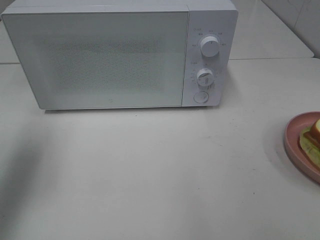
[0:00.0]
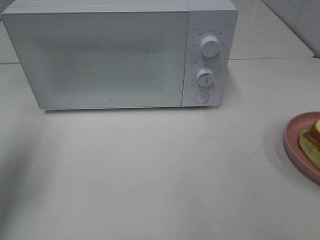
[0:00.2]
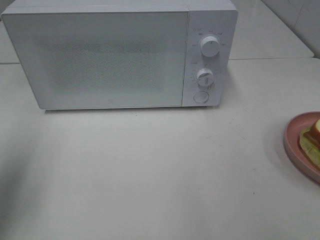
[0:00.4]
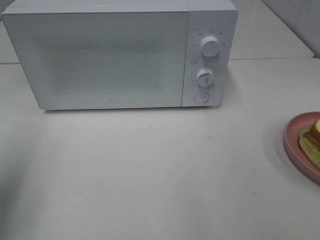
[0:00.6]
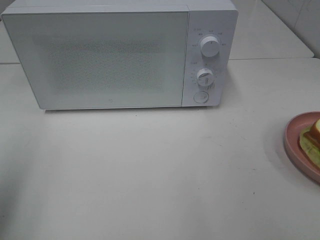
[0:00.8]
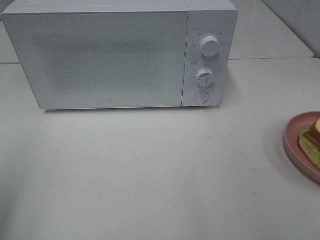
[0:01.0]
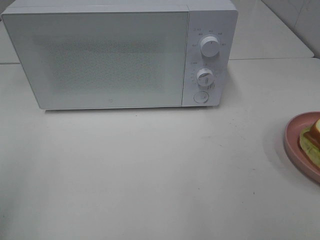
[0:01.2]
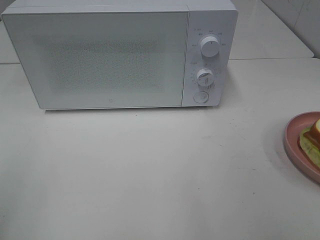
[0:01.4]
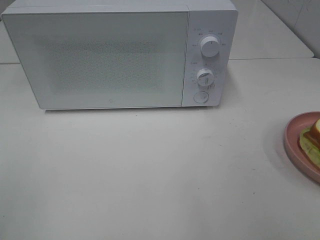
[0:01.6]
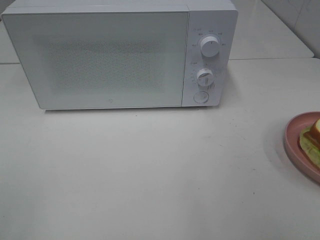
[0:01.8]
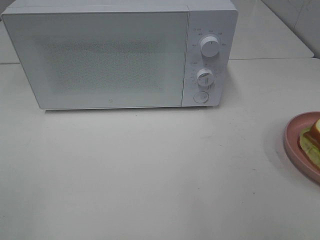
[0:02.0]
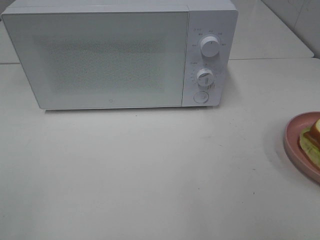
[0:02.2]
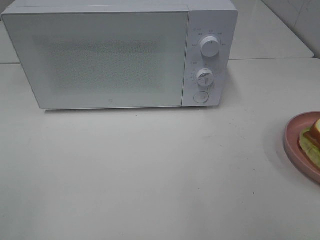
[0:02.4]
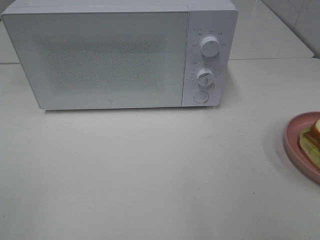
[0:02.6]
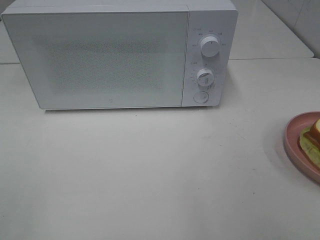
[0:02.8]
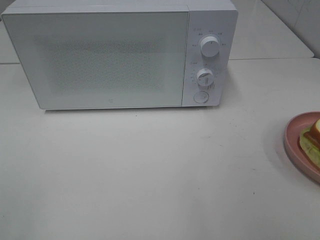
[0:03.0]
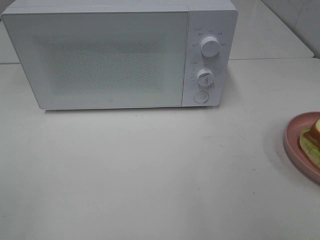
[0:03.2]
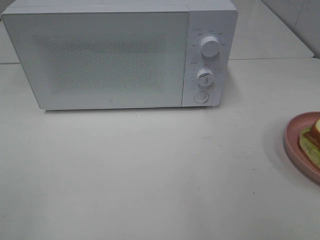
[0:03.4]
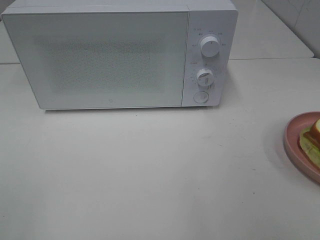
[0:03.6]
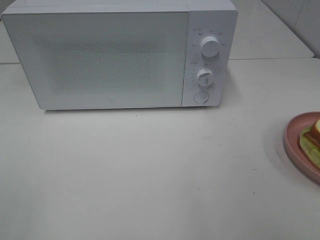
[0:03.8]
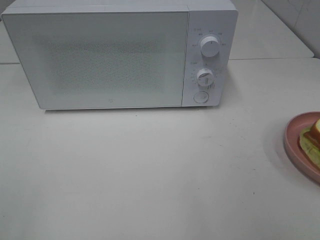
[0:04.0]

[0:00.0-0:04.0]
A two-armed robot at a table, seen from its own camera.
Task of the whole recording: Heat Sandwich.
0:00.0 to 0:01.4: The left gripper shifts about 20 cm backward.
0:02.6 to 0:04.0: Both grippers stay put.

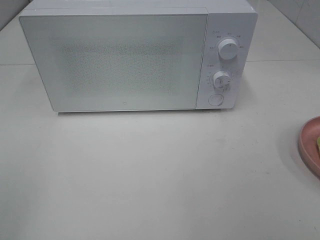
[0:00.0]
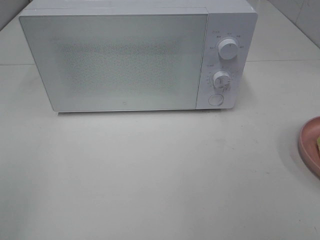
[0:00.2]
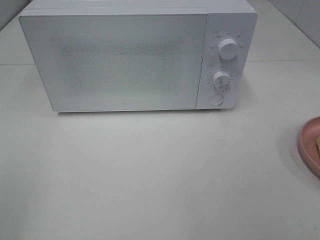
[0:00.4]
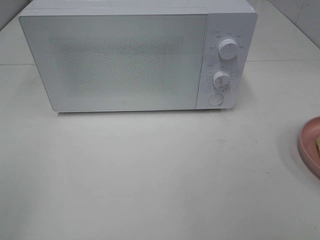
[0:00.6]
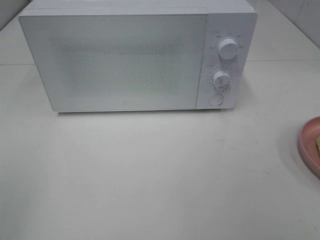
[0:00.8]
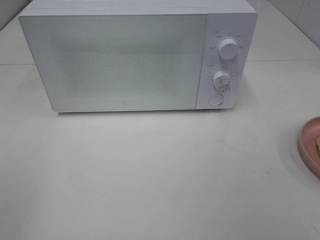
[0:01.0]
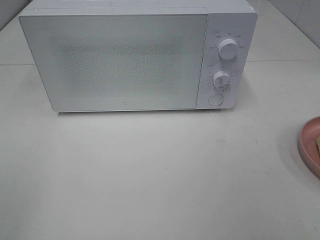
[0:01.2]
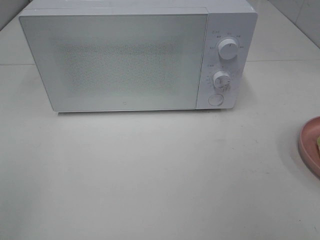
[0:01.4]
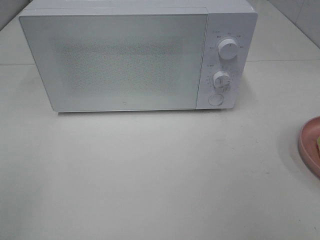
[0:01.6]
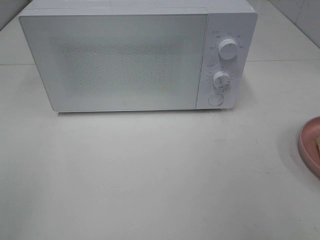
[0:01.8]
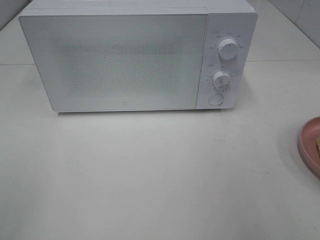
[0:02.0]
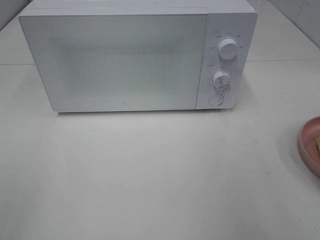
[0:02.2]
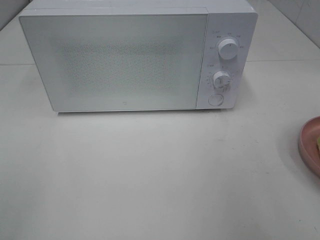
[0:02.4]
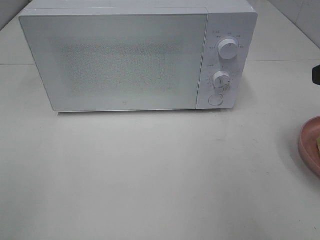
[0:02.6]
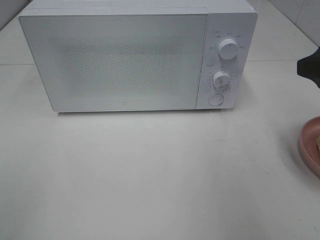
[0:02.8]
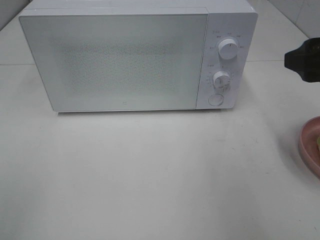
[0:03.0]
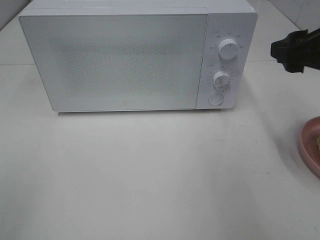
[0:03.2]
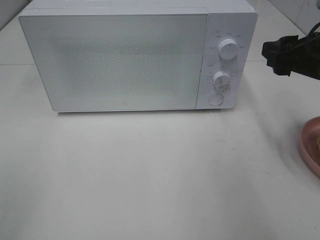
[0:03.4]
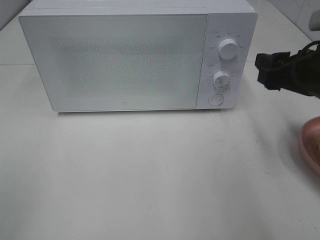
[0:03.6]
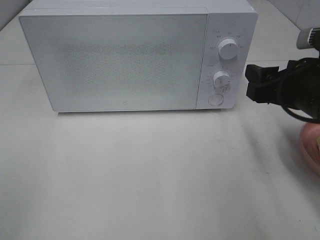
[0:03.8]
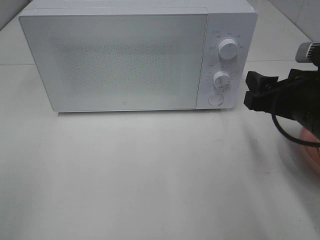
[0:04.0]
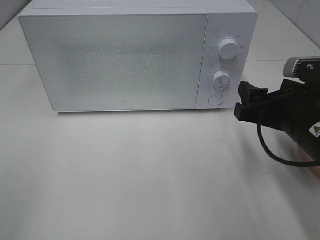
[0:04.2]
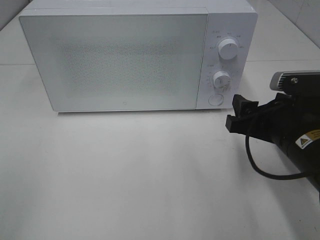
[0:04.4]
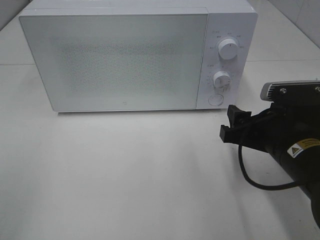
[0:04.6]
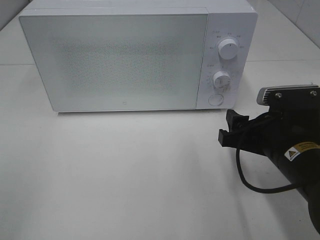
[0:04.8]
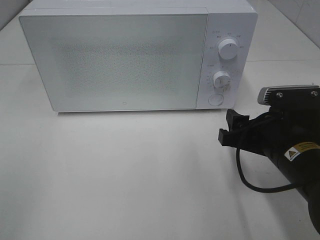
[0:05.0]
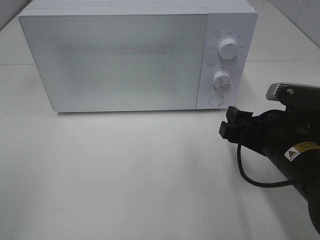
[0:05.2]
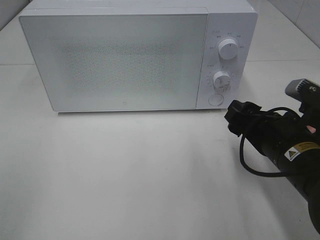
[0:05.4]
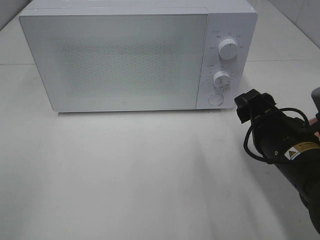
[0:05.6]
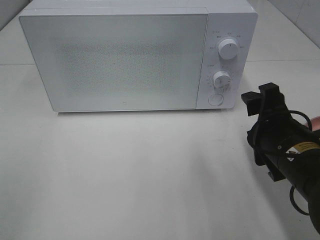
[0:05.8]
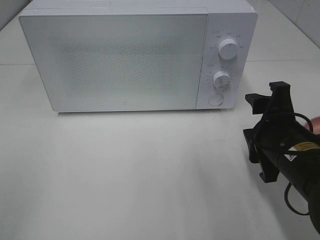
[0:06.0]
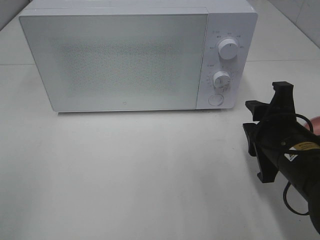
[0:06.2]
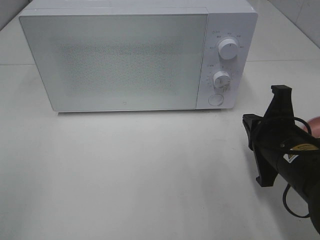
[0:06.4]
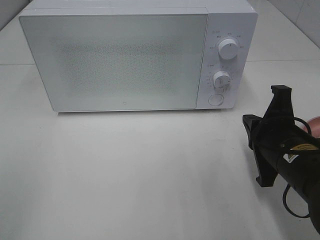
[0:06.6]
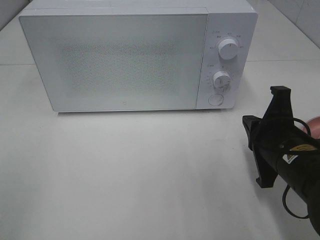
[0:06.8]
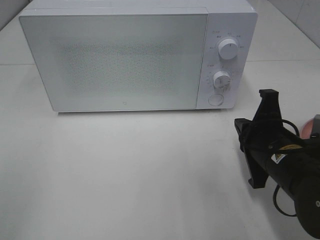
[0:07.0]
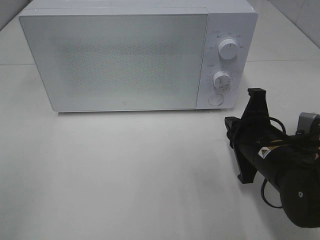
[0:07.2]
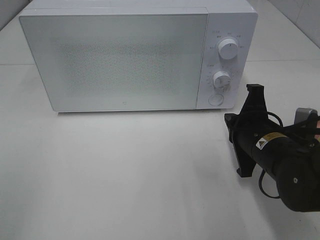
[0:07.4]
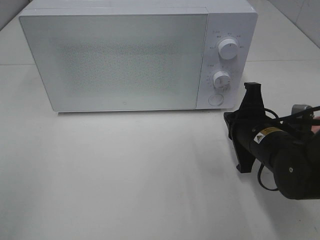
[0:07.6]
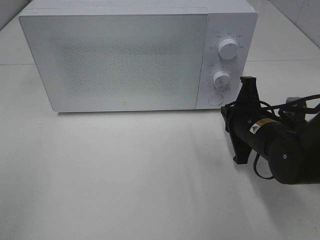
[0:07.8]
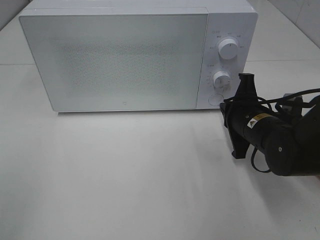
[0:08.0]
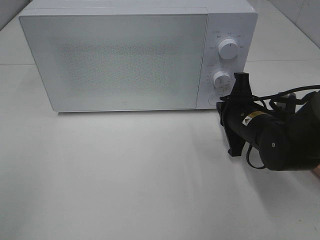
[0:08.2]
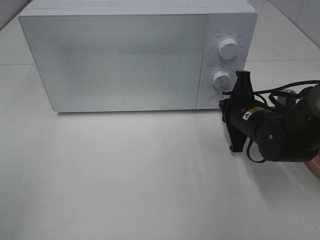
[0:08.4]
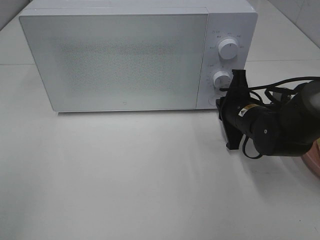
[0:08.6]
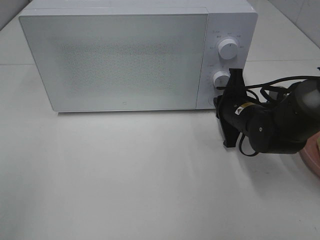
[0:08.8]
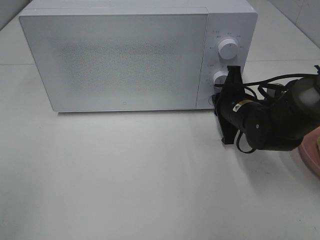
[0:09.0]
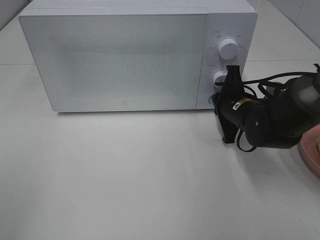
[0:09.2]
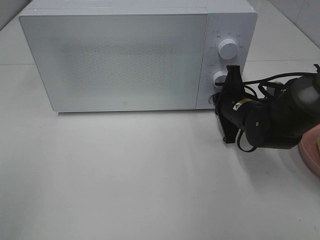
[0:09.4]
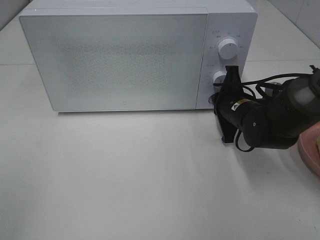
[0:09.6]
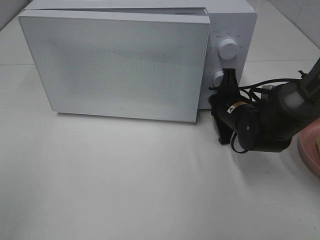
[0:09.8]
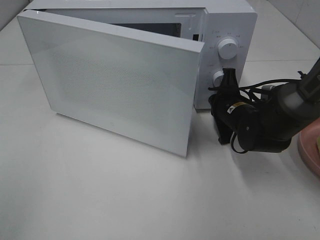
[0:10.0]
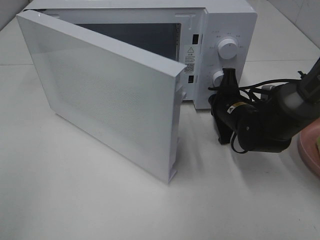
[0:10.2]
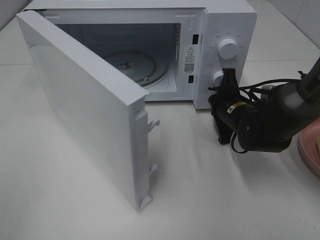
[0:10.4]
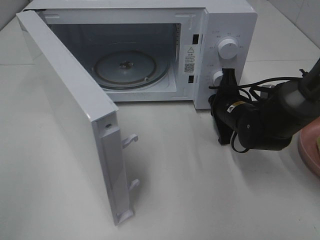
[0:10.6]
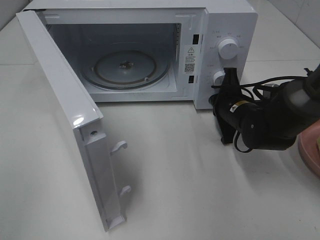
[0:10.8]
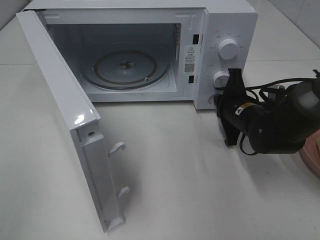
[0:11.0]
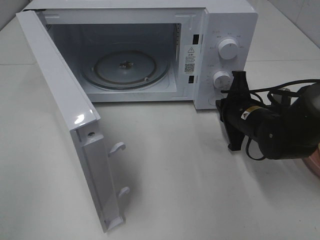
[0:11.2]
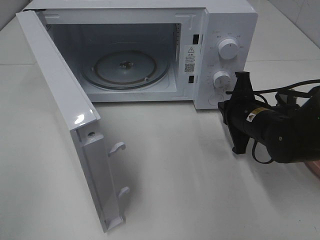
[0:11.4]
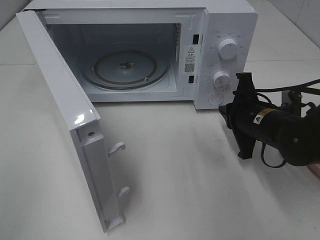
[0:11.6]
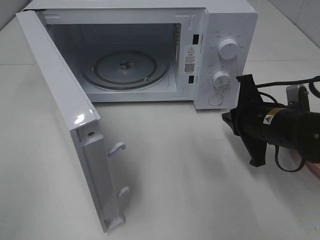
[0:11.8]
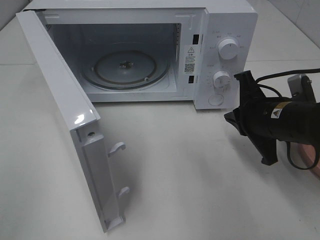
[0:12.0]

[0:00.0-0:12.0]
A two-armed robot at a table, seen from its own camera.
Task of the whole recording: Heat Sandwich.
Step, 0:00.0 to 0:11.4: Right hand: press the switch.
0:01.6 to 0:03.0: The right gripper goes roughly 15 cm forward.
0:03.0 to 0:04.4: The right gripper goes approximately 15 cm downward and to the left.
0:06.0 to 0:07.6: The right gripper shifts about 5 cm forward, and closes its fingers.
0:07.6 to 0:09.0: The right gripper shifts approximately 10 cm forward.
0:10.4 to 0:12.0: The right gripper travels backward and upward by some 10 cm.

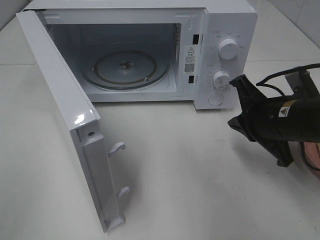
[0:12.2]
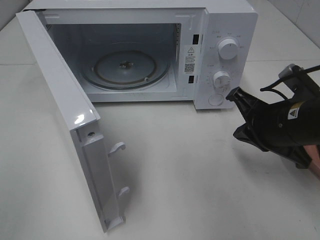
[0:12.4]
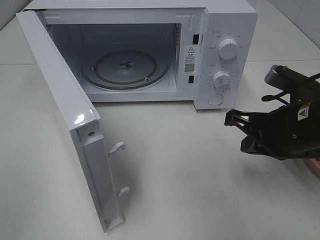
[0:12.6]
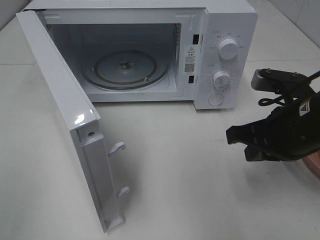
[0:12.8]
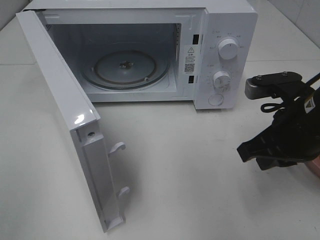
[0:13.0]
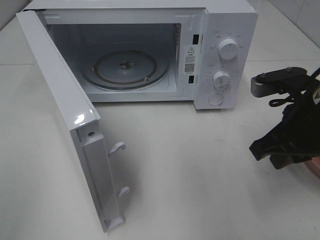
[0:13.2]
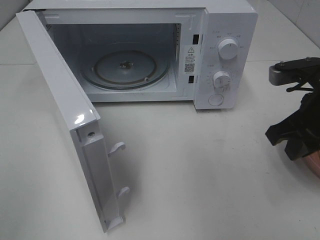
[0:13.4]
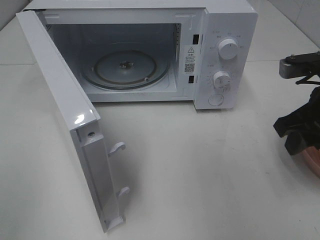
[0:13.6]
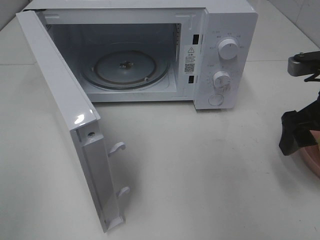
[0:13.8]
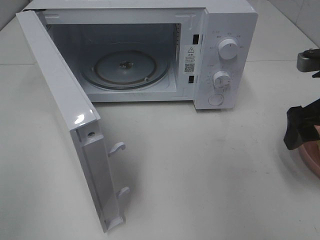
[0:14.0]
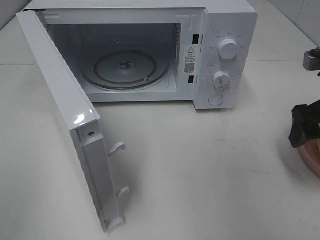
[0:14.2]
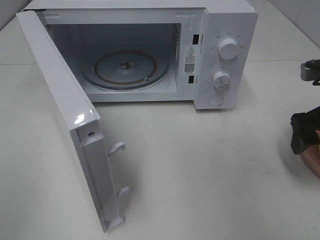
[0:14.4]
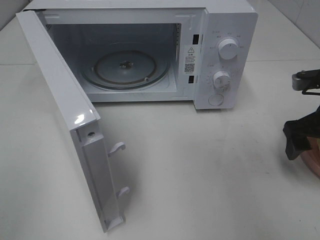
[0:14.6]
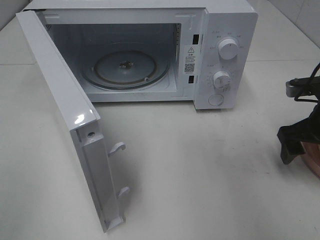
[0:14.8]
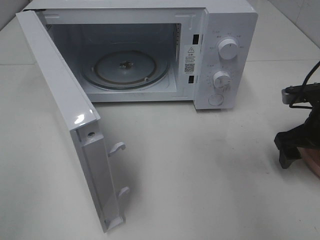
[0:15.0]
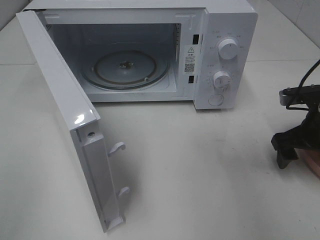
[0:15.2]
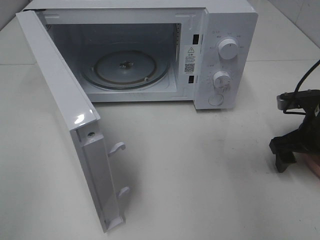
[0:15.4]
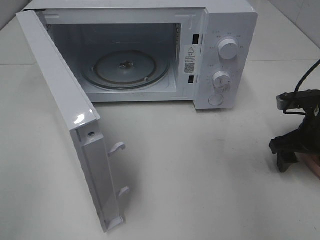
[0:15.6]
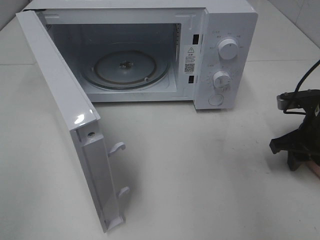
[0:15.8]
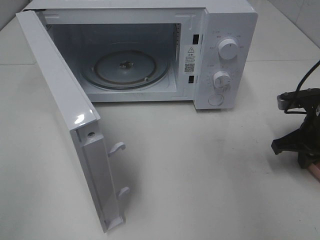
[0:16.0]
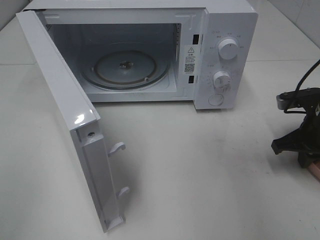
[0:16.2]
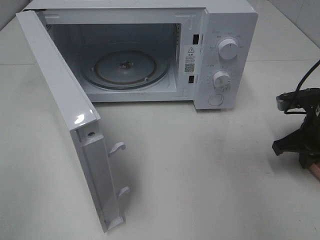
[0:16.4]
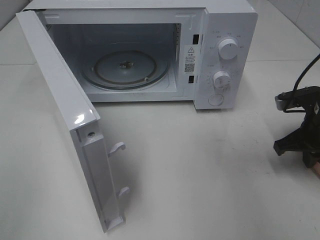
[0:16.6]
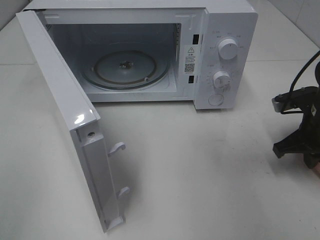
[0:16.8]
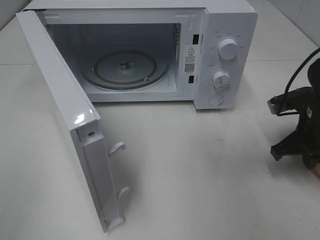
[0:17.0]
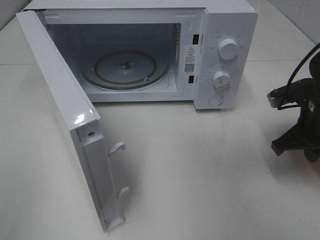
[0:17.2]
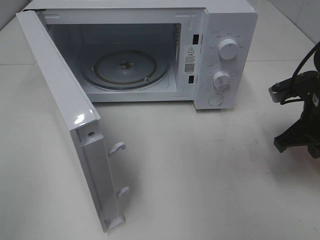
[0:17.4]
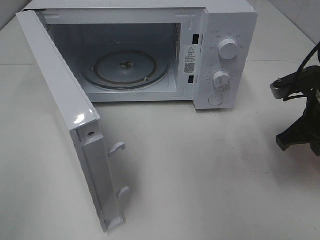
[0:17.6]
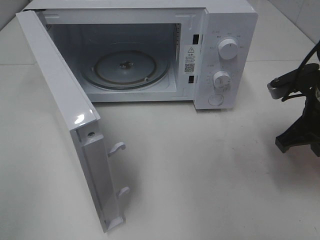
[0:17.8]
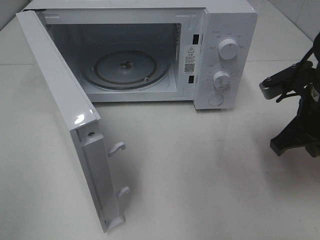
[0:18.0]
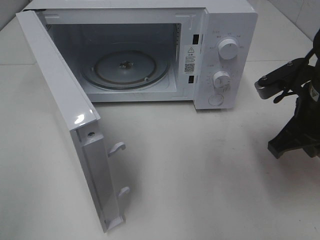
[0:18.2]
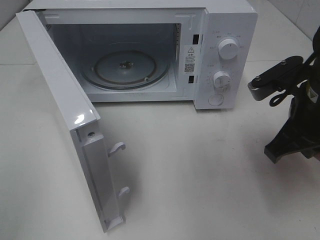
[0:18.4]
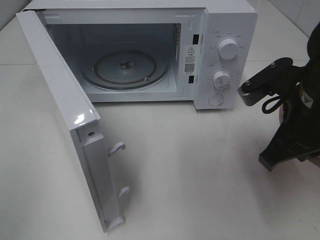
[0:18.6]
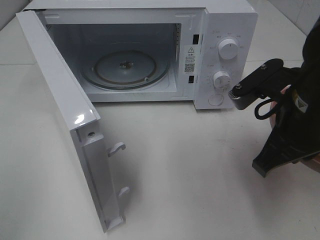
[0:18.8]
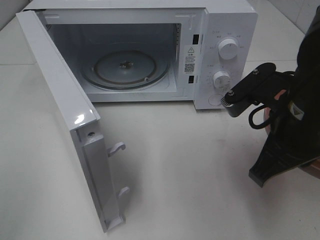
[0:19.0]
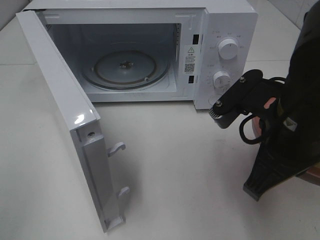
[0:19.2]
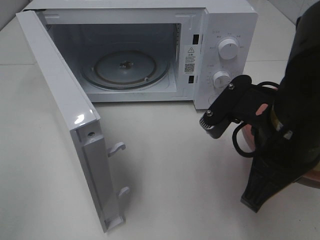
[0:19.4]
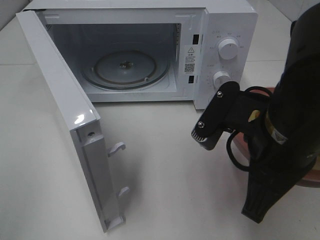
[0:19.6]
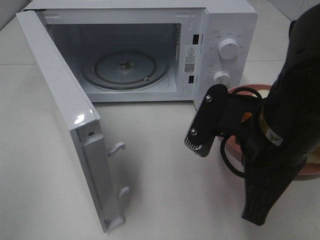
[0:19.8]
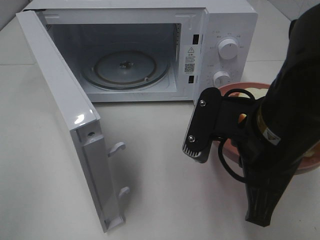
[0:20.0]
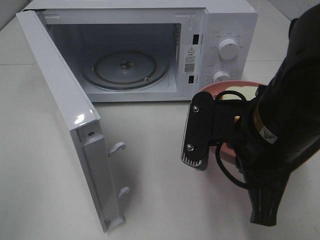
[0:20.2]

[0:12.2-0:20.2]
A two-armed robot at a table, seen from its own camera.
Task of the whole recording: Heat Sandwich.
Step, 0:12.2 to 0:16.4: Right hand: grab the plate with the sandwich.
0:12.2 to 0:13.8: The right gripper heads to the right and upward, covering about 10 cm, and opens up.
0:13.8 to 0:15.4: The right gripper is displaced downward by approximately 10 cm.
0:15.4 to 0:17.0: The right gripper closes up.
0:17.0 to 0:18.6: The right gripper shifts approximately 15 cm upward, to the left and backward.
0:18.6 to 0:20.2: The right gripper heads to the left, covering about 5 cm.
